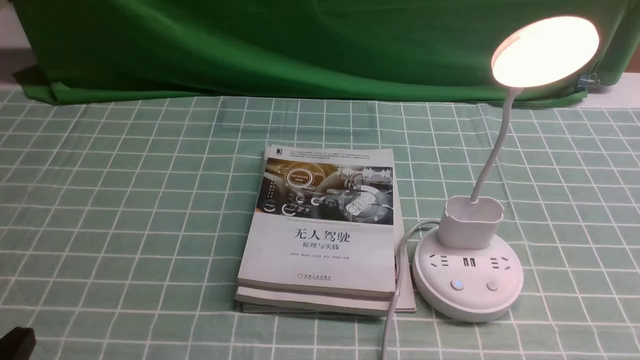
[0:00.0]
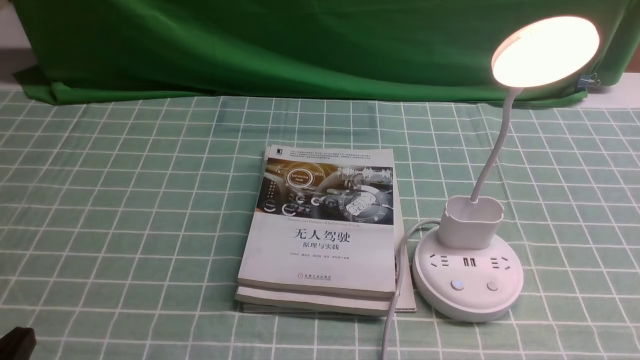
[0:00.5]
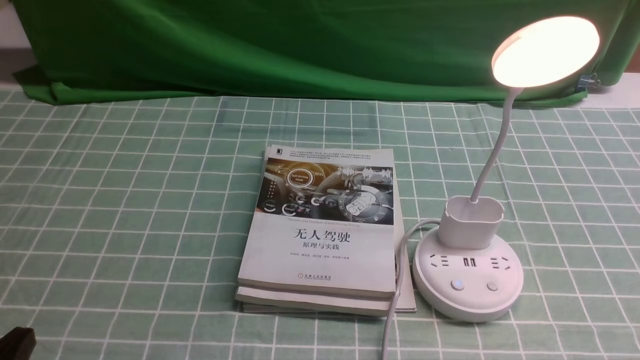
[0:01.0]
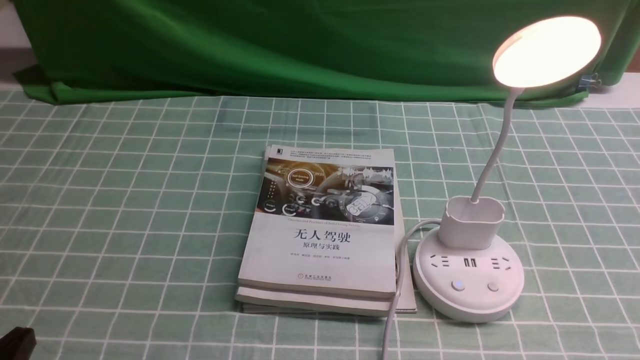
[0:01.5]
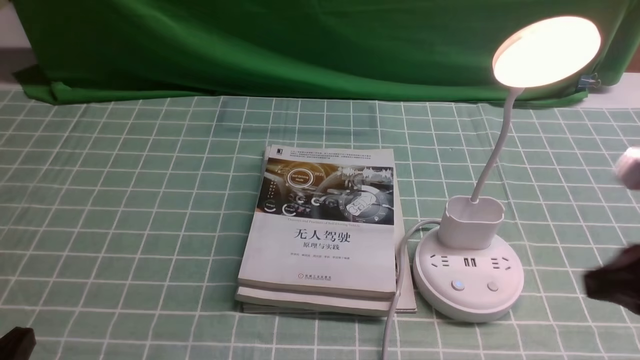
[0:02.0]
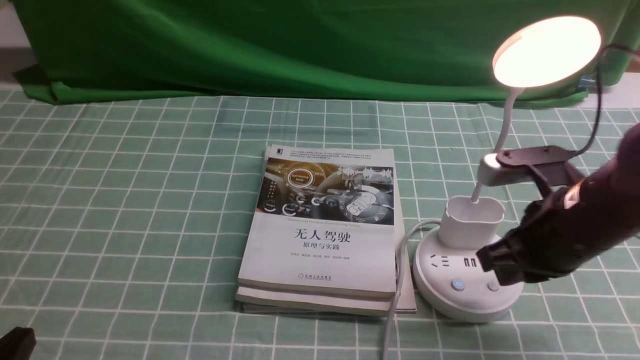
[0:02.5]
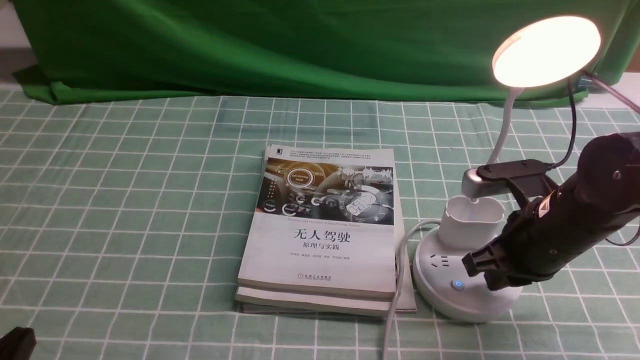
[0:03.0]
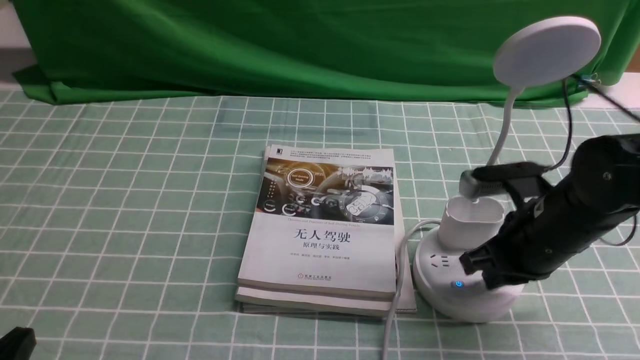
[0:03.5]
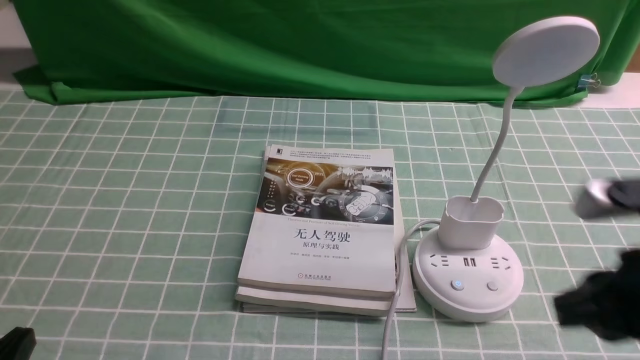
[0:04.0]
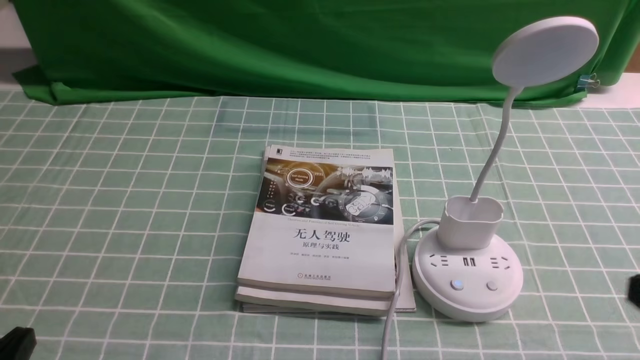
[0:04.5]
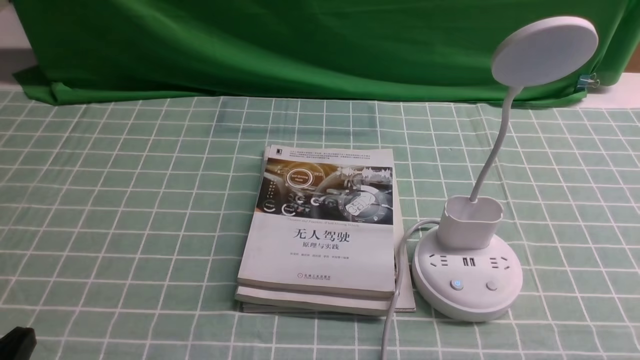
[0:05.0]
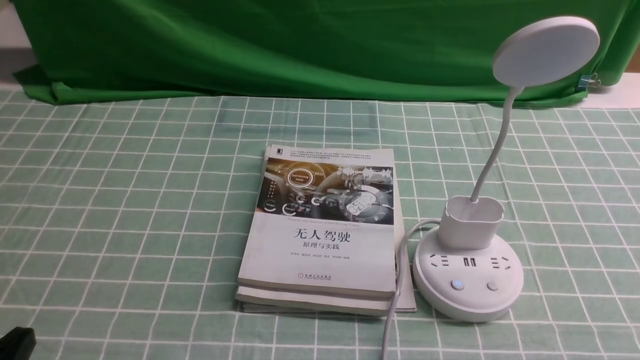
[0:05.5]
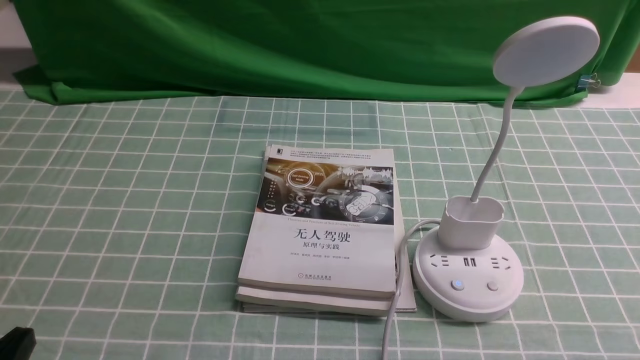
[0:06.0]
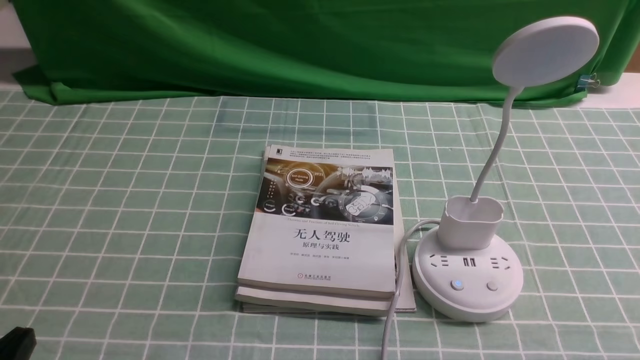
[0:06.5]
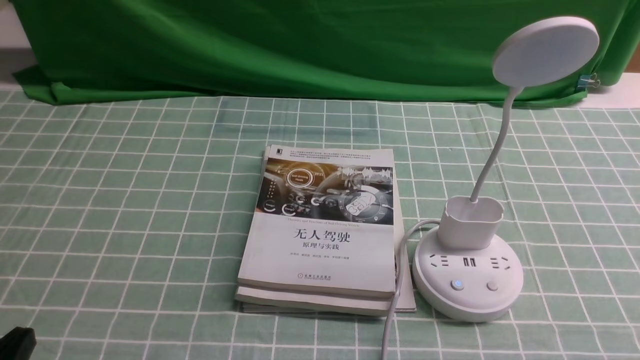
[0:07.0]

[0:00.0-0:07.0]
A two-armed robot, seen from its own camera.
Task of the whole recording: turn off the desk lamp on the blue coffee tablecloth by hand.
Step, 0:00.0 to 0:03.5: use the right arm to press the button switch on the lamp holder.
0:00.0 to 0:02.0: The right gripper moves forward and upward, approximately 15 cm, and closes up.
0:02.0 to 0:03.5: The right gripper heads forward and downward, covering some 15 cm.
0:03.5 to 0:05.0: The right gripper heads backward and to the right, covering some 25 cm.

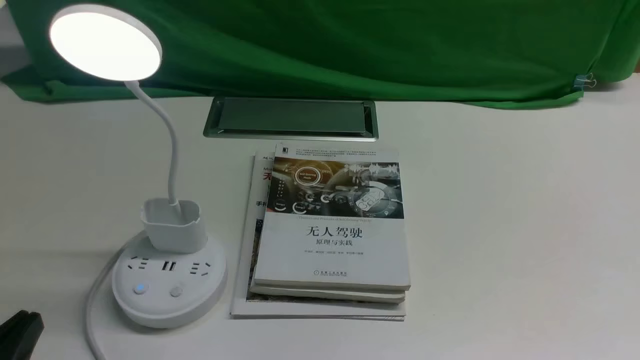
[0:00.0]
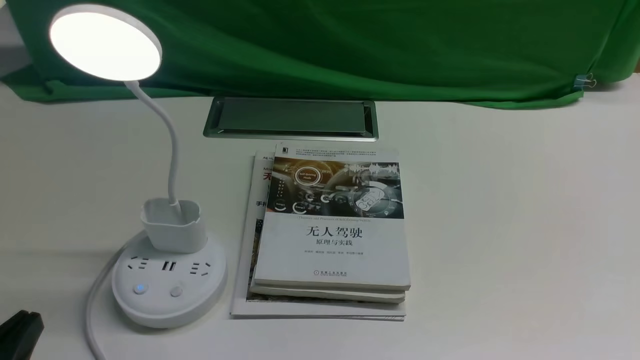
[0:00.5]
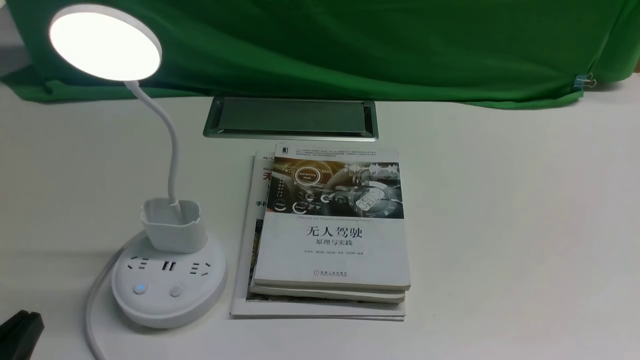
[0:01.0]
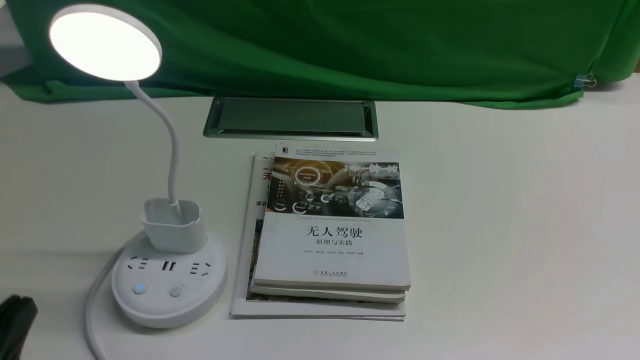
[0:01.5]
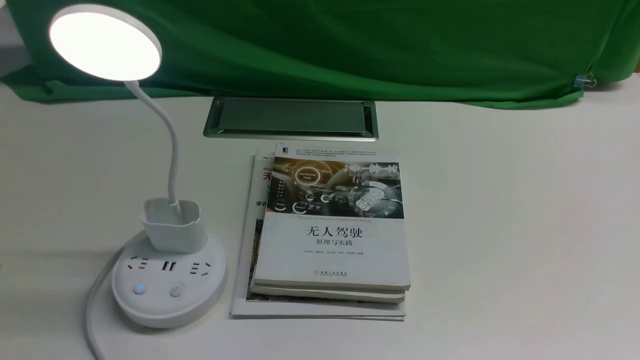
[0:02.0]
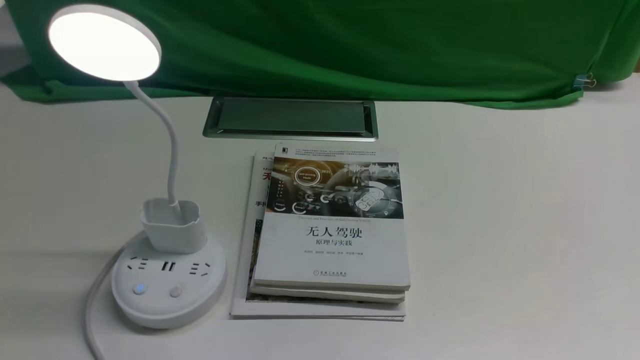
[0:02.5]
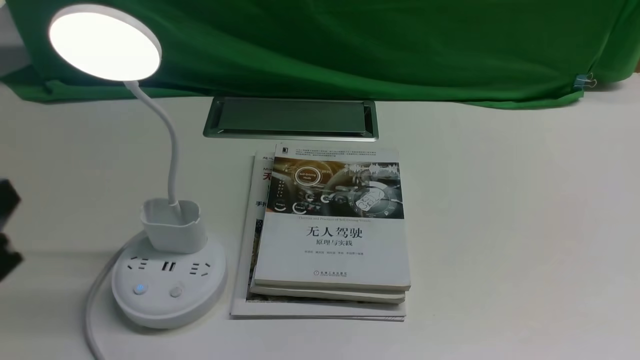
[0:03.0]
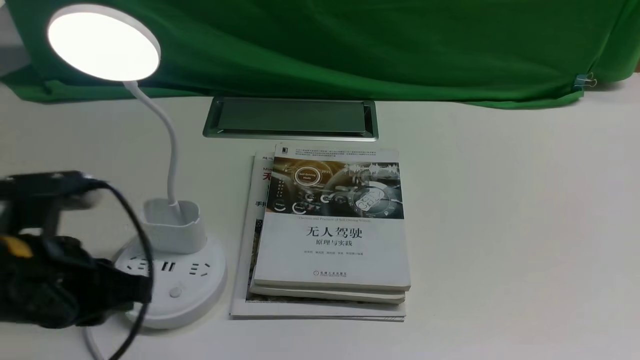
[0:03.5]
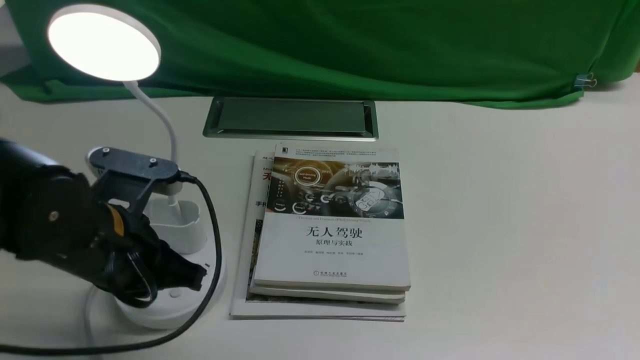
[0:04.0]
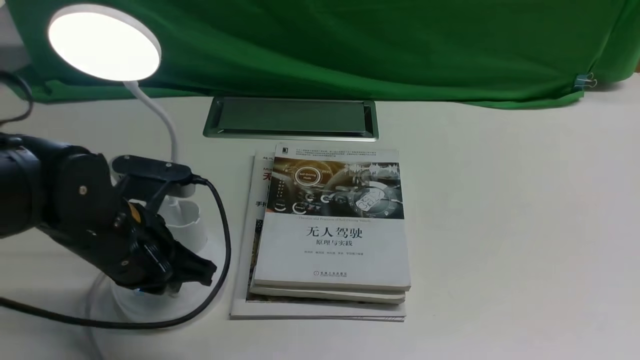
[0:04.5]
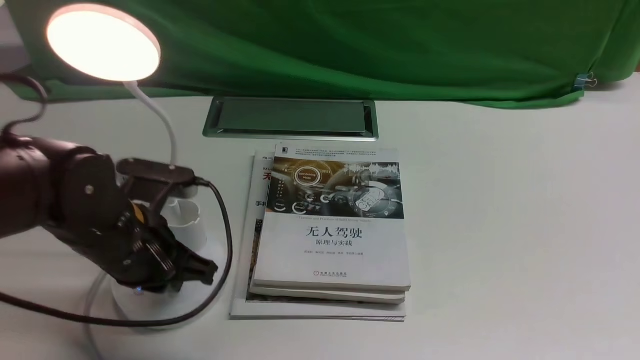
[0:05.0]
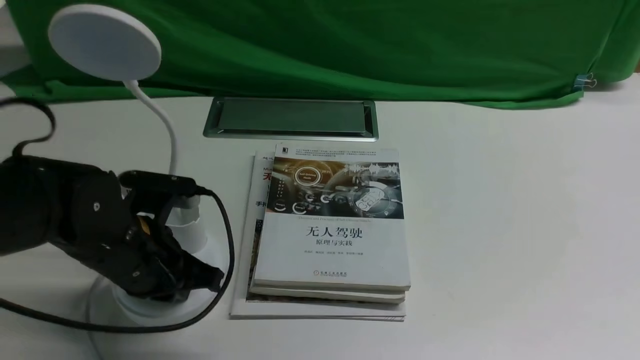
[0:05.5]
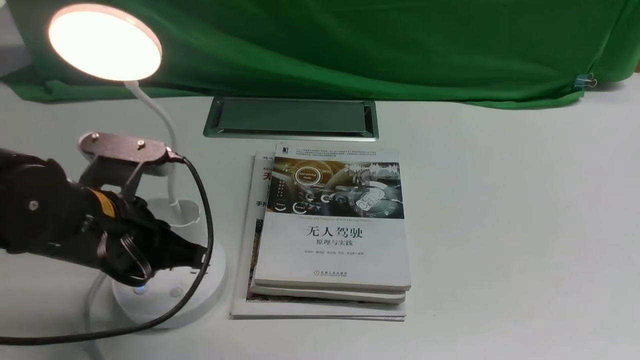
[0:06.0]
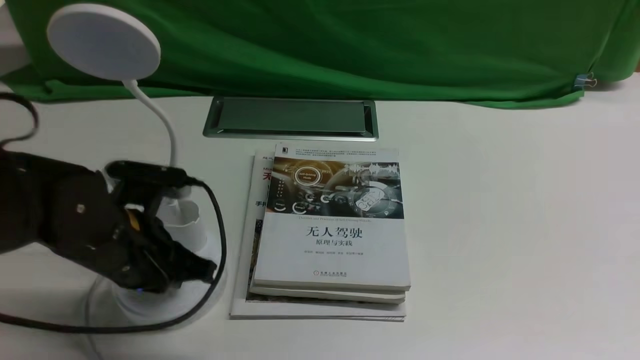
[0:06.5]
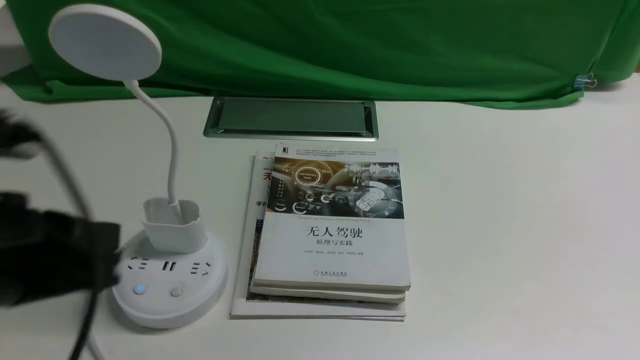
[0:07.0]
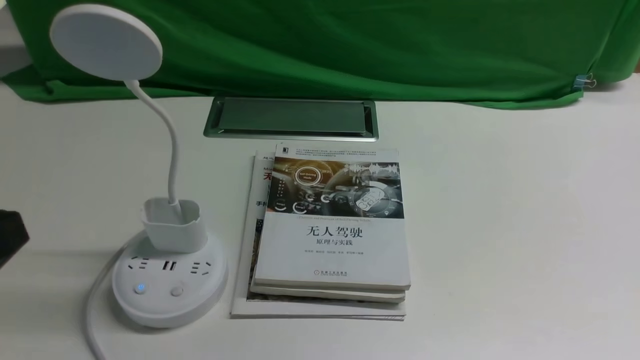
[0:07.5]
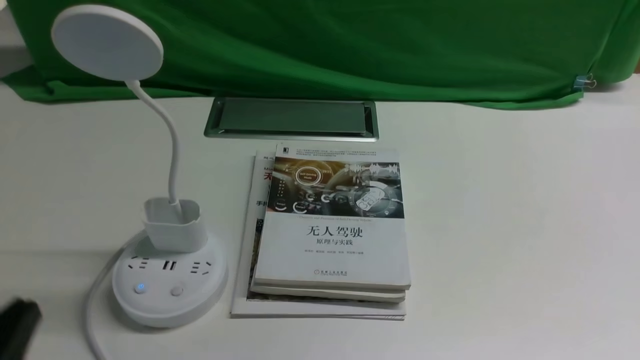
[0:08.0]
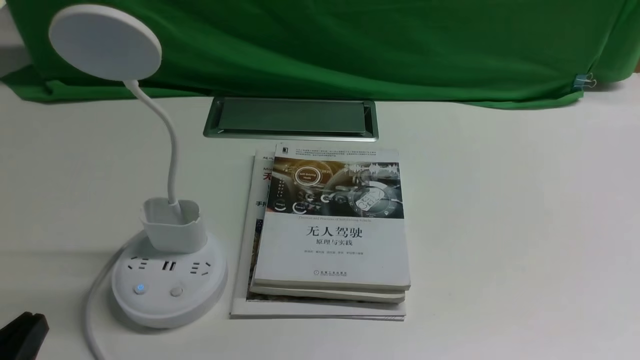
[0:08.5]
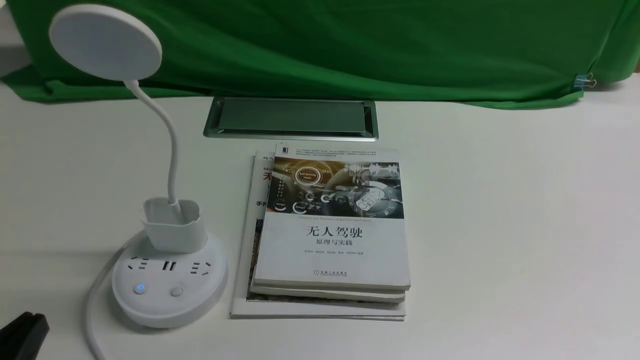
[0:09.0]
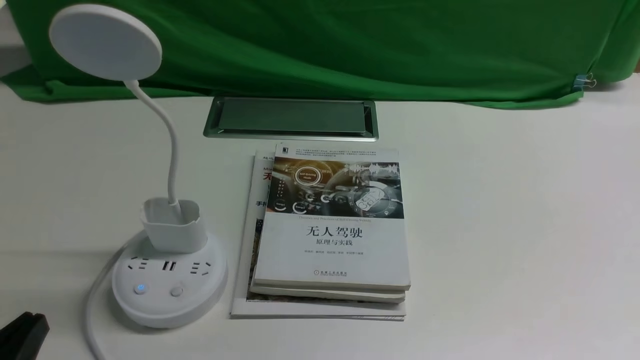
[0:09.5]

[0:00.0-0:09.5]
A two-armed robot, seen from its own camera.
Task of the whole recording: turn off the desk lamp on the white desktop by hand.
Step, 0:00.0 to 0:06.5: use the left arm to press the button switch on the lamp holder.
0:02.0 to 0:04.0: The left gripper shifts about 15 cm forward.
0:04.0 to 0:05.5: The left gripper closes its fingers.
0:05.5 to 0:07.5: The left gripper heads backward and upward, covering about 25 cm, and opens.
0:07.5 to 0:09.5: The left gripper heads downward, covering some 15 cm, and opens.
